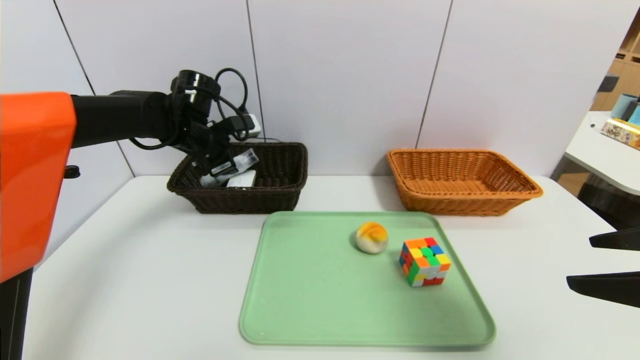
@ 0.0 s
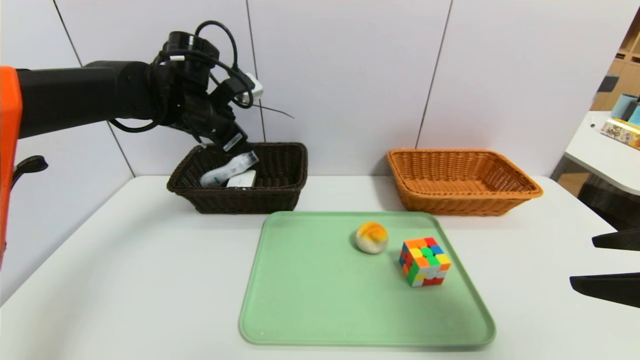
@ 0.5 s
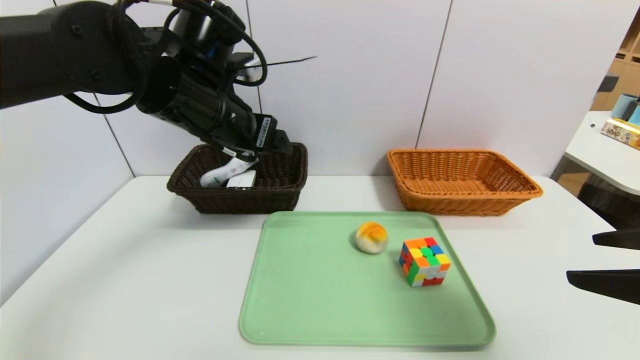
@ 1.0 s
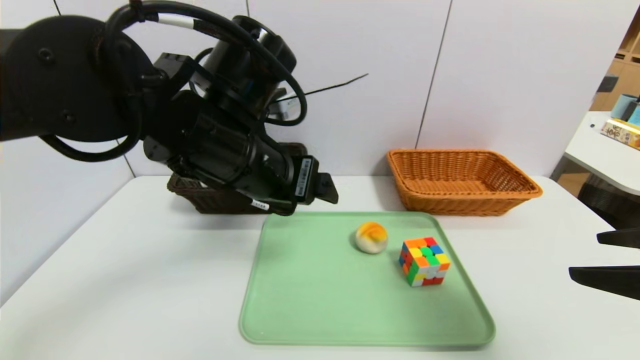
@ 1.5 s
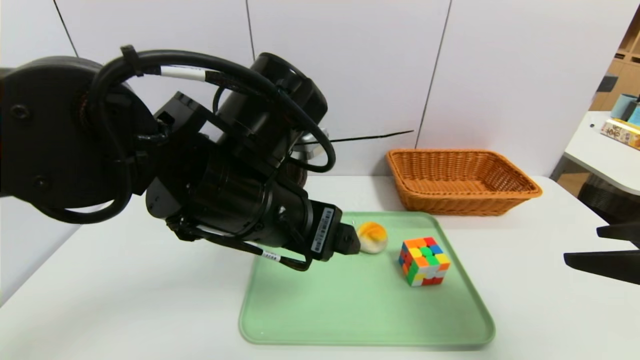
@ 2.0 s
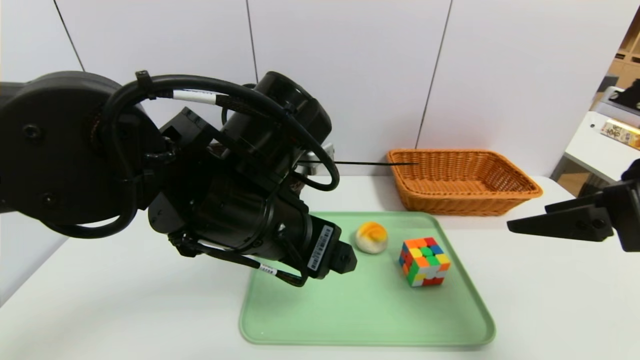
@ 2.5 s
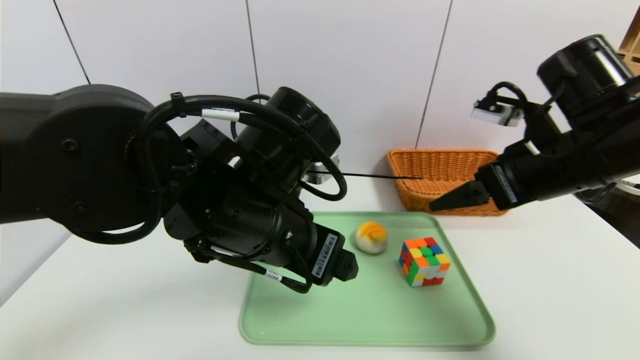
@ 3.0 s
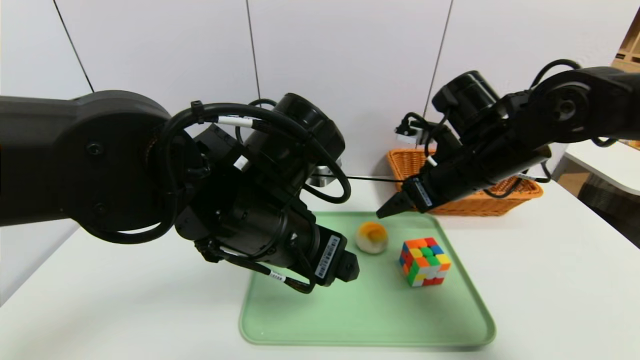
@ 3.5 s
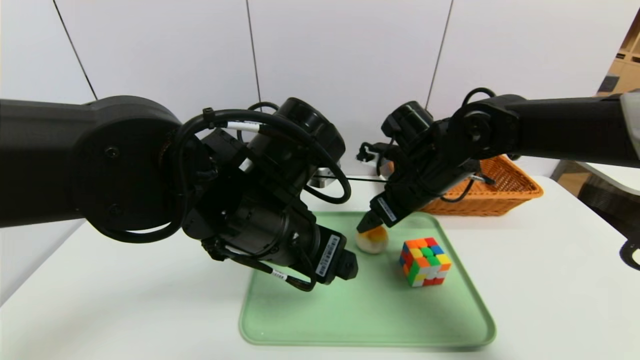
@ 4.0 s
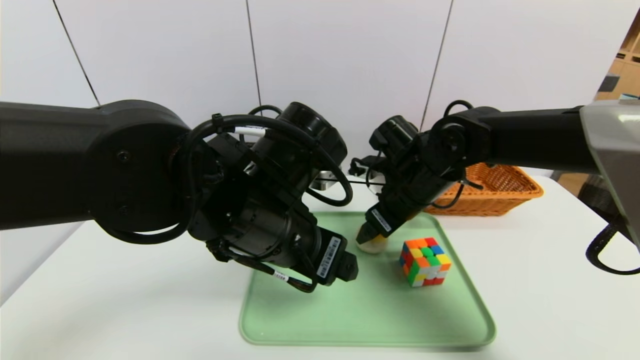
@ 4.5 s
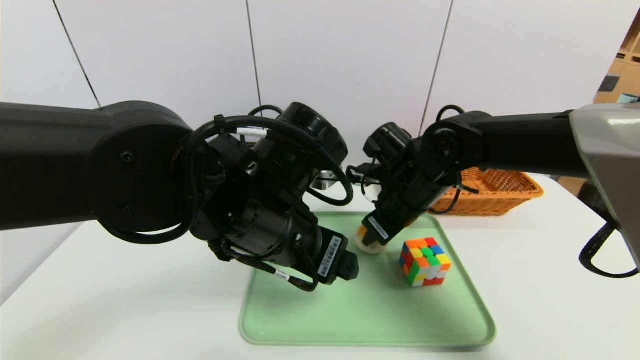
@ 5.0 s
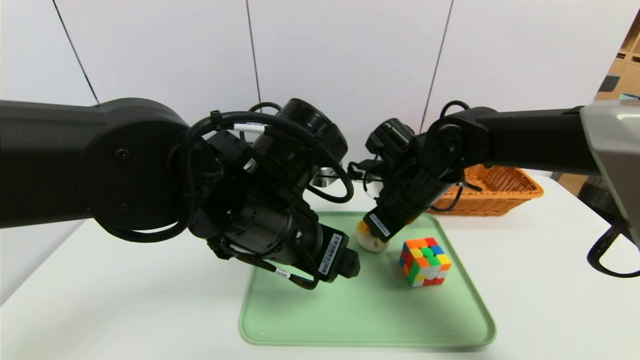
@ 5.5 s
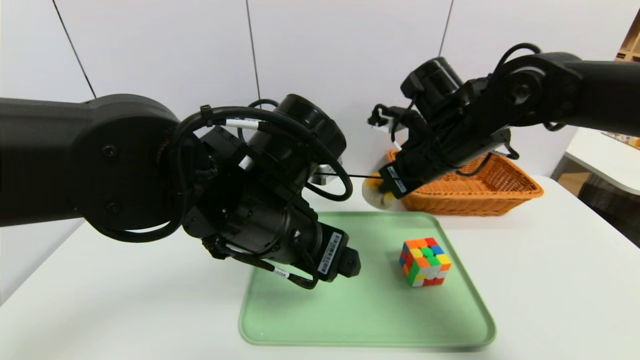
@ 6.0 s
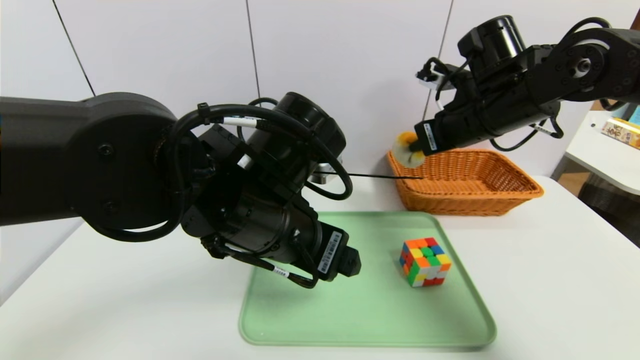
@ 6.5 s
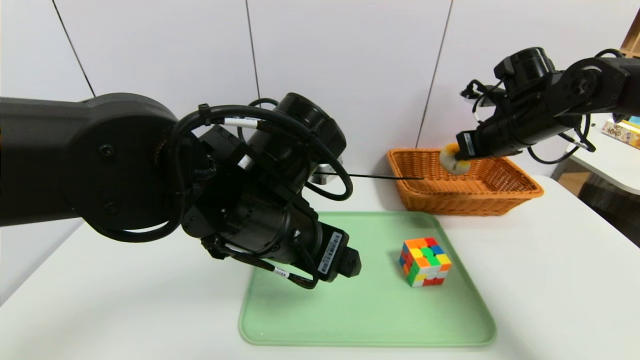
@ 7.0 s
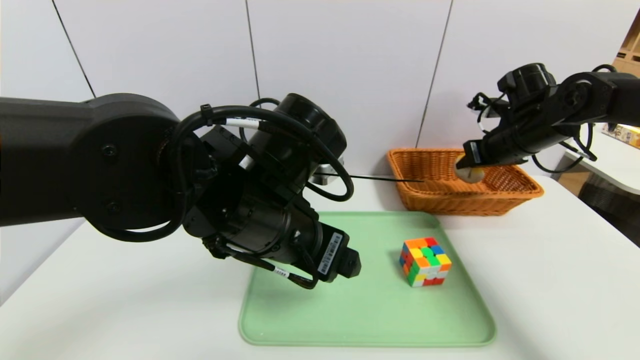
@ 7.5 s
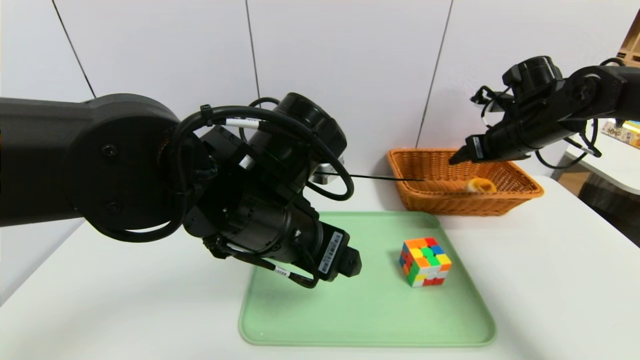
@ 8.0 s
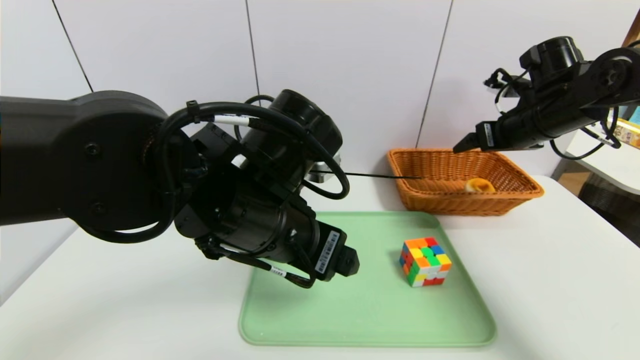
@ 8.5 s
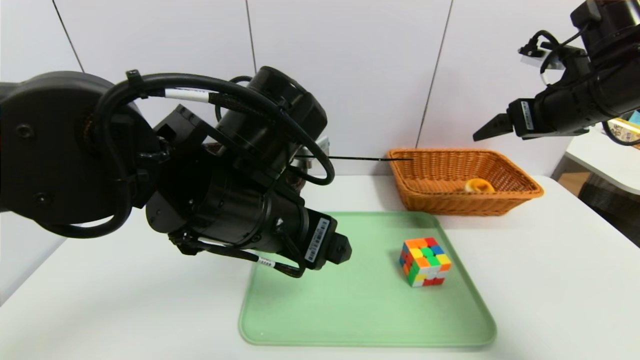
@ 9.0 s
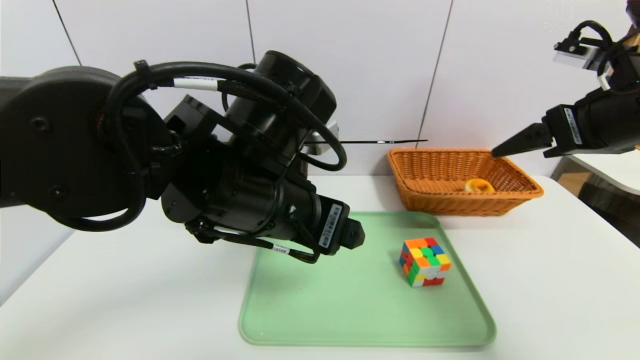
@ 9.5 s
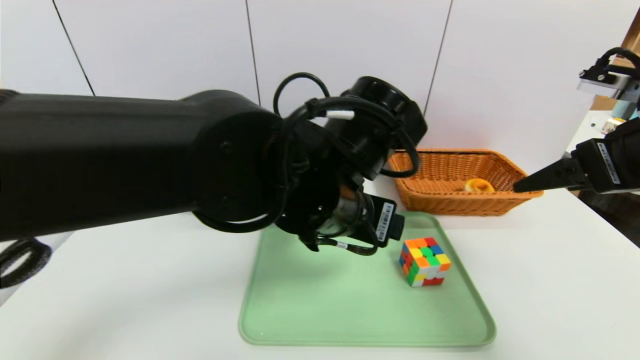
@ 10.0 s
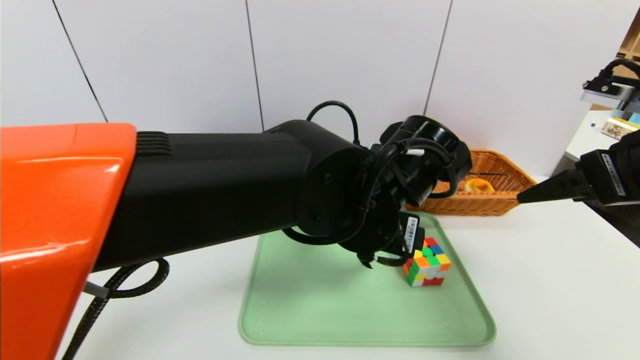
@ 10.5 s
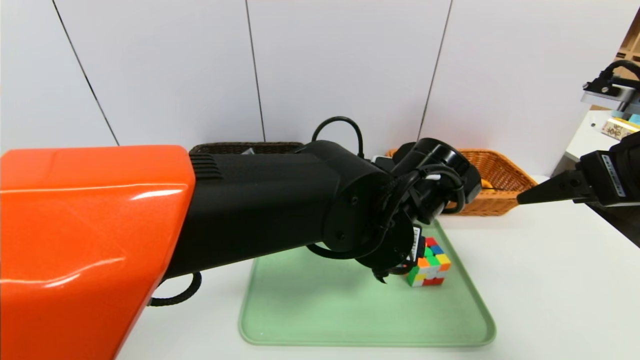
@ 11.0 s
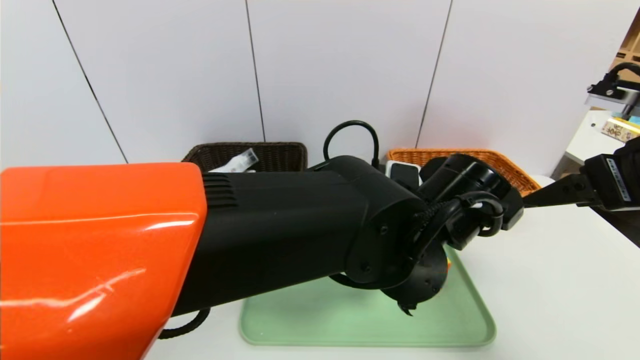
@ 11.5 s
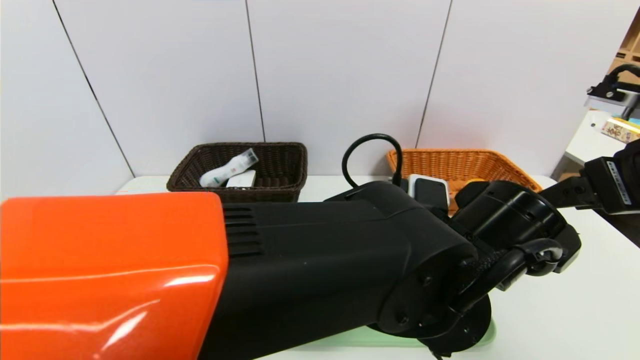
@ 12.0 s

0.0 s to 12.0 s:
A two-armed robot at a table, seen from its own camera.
Task of the whole recording: place the food in the right basket with the right gripper, and place the non food items in the left basket with the left gripper.
Step, 0.0 to 8.0 s: Grasp the egg yolk pastry and put it in the right basket.
0.0 to 2.0 s: The left gripper is displaced backward and to the right by some 25 cm, and opens.
2.0 to 4.0 s: The right gripper moves forward and to the left, roughly 30 cm.
4.0 to 6.0 s: The right gripper moves upward, some 5 cm, and closes up.
6.0 to 8.0 s: The right gripper travels to the right and forward by some 20 cm, and opens up.
8.0 to 10.0 s: The left gripper goes roughly 5 cm to the right. The right gripper is displaced backward by about 20 cm.
10.0 to 12.0 s: The left gripper moves to the right and downward, approximately 10 cm.

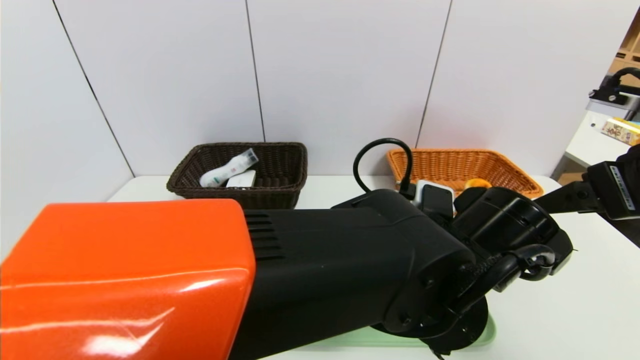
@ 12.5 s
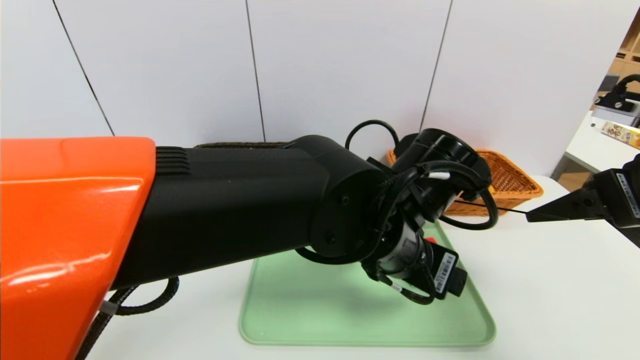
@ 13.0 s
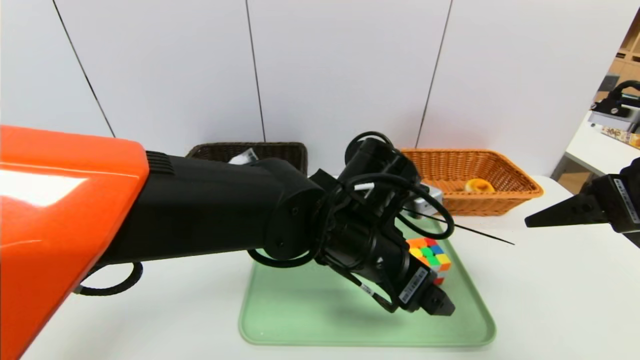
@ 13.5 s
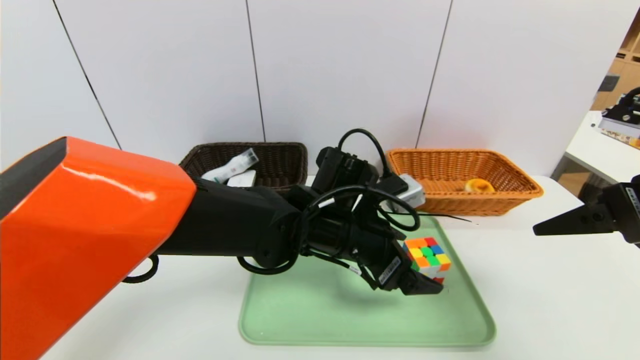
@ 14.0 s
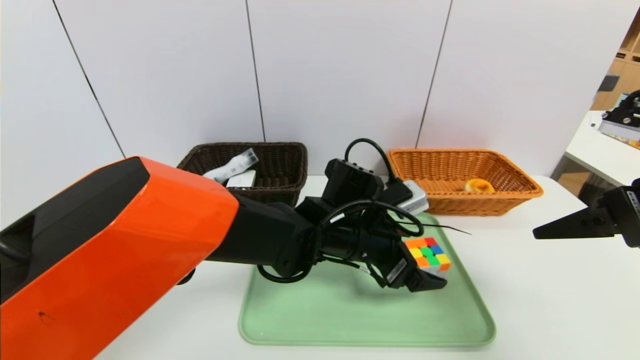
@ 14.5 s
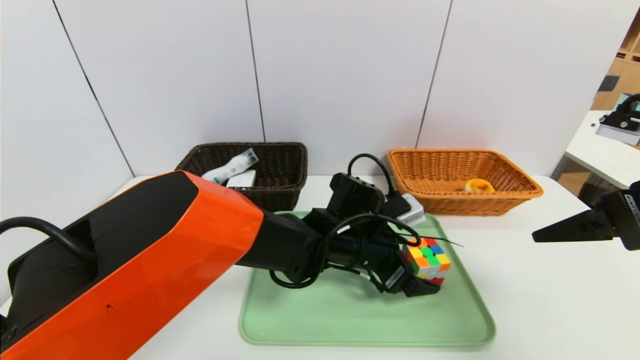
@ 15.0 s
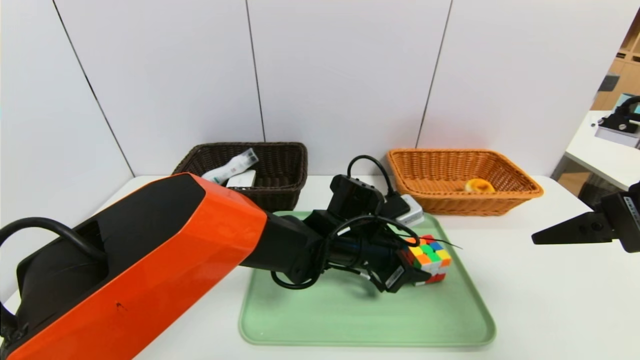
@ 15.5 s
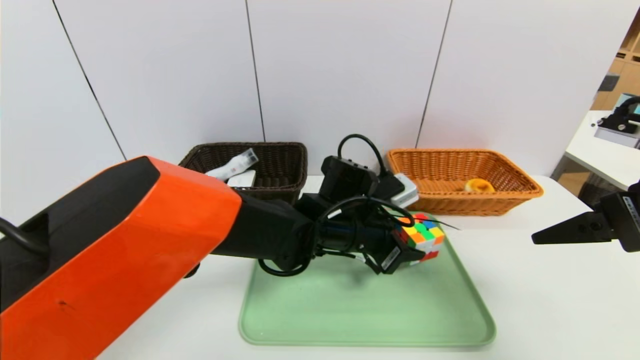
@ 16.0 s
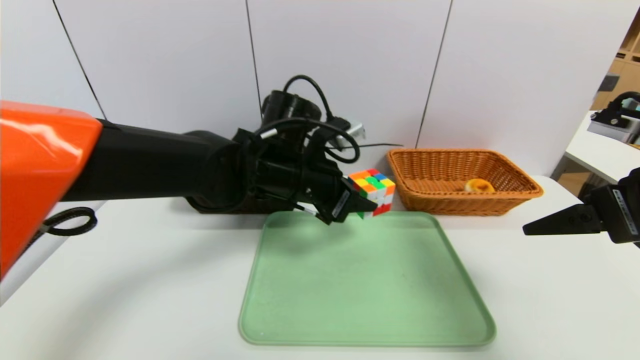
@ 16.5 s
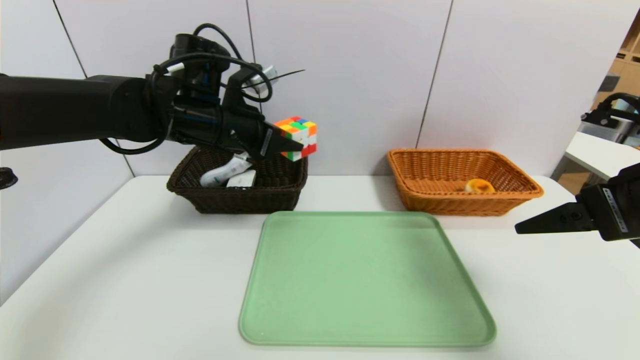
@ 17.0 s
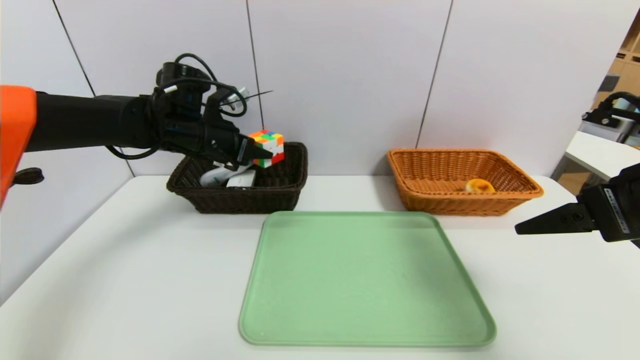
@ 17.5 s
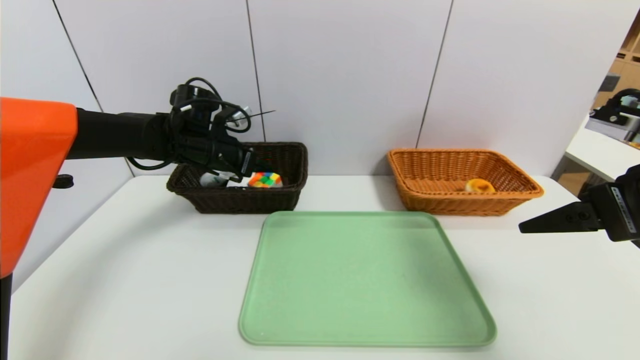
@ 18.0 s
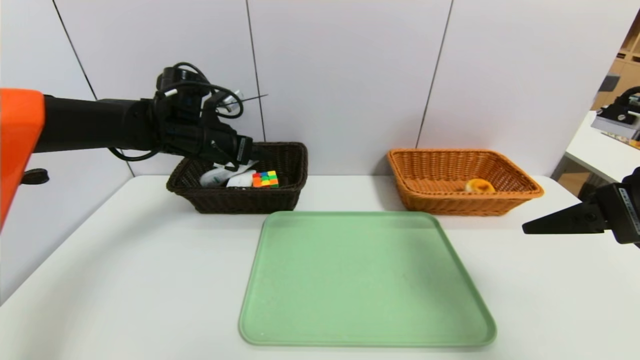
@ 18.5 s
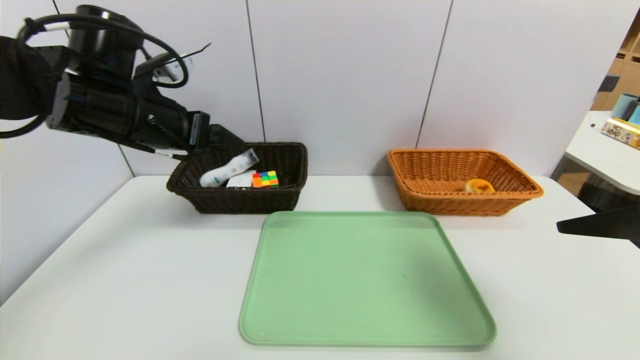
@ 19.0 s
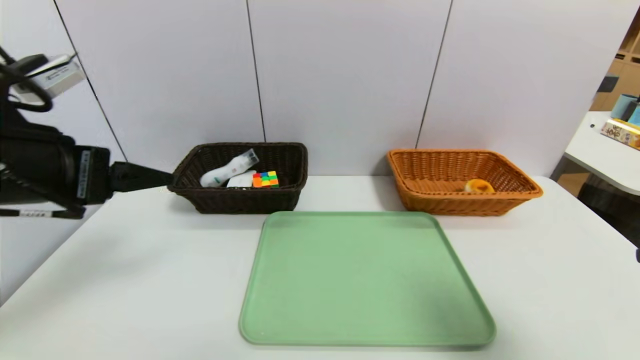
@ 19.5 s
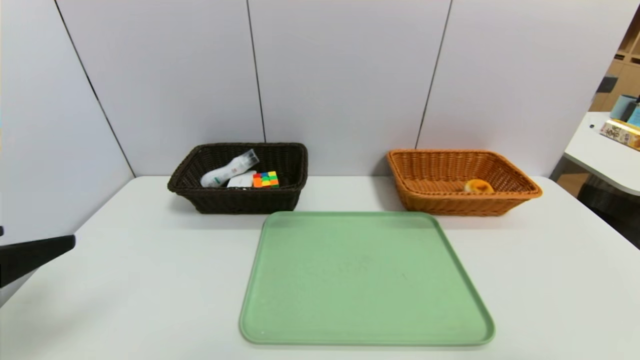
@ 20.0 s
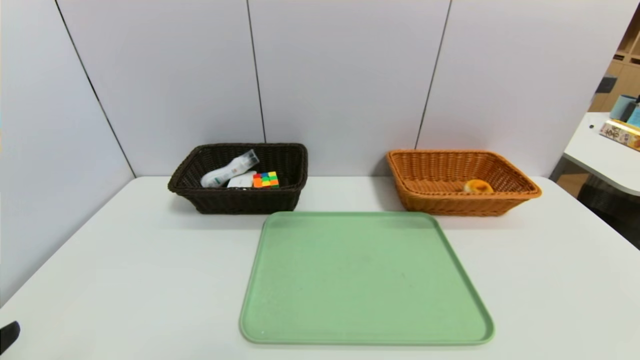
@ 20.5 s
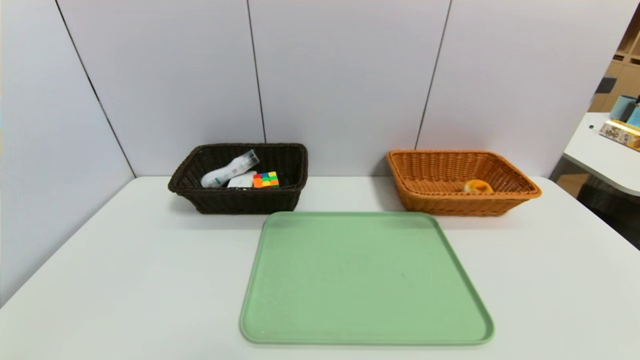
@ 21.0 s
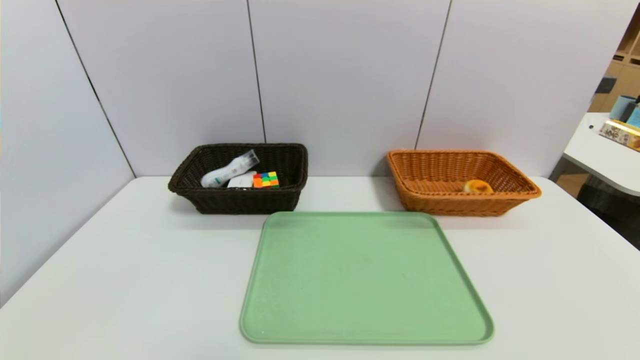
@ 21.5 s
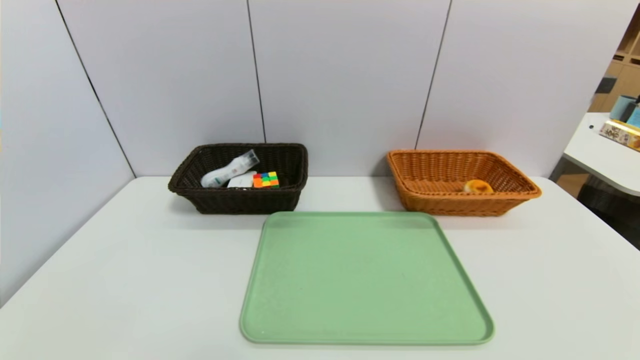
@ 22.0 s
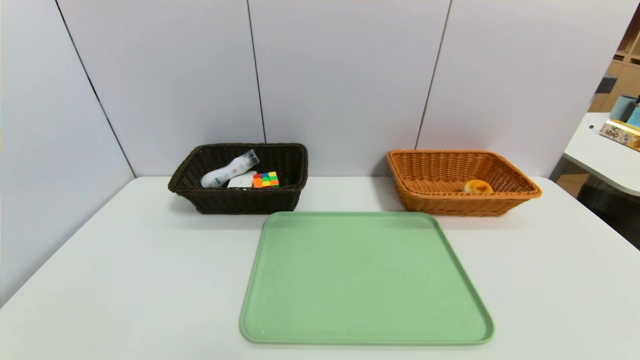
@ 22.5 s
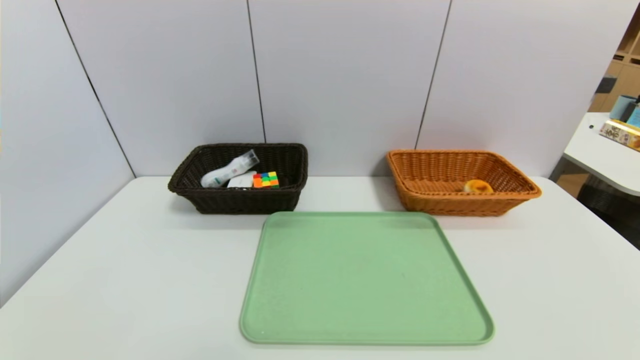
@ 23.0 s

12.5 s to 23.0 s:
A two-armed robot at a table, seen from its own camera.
Task of the whole recording: place the food in the right basket with the right gripper, and place the non food items in the left basket with the left gripper.
Step, 12.5 to 18.5 s: Grasp the rubiks cube and put it in the left basket.
12.5 to 14.5 s: The left gripper shifts approximately 15 cm forward, to the left and downward.
14.5 to 16.5 s: The left gripper shifts some 10 cm to the left and upward, and closes.
16.5 to 19.0 s: The left gripper goes roughly 20 cm to the left and upward, and opens its fingers.
19.0 to 21.0 s: The right gripper moves backward and downward, about 25 cm, while the left gripper heads backward, covering about 35 cm.
